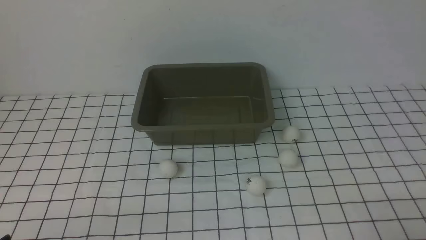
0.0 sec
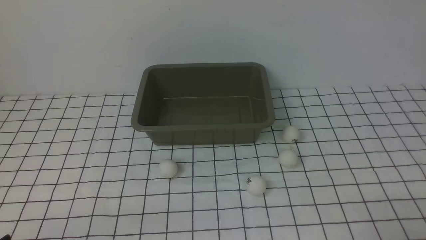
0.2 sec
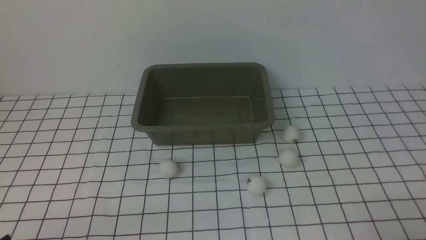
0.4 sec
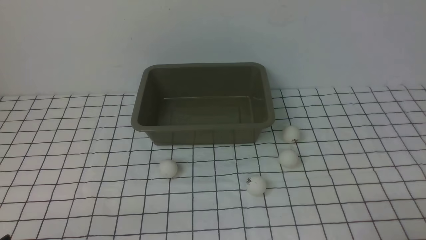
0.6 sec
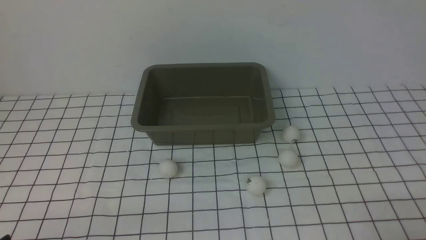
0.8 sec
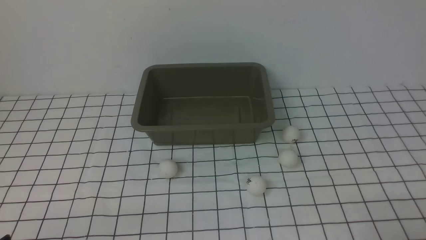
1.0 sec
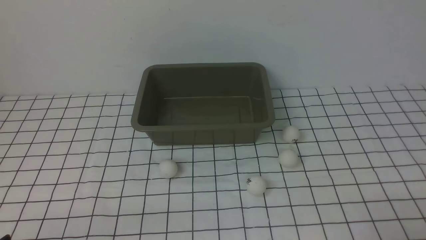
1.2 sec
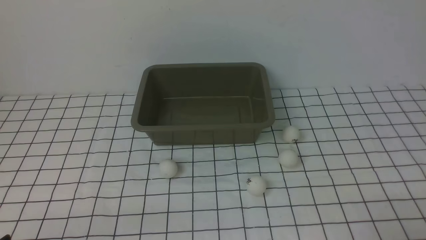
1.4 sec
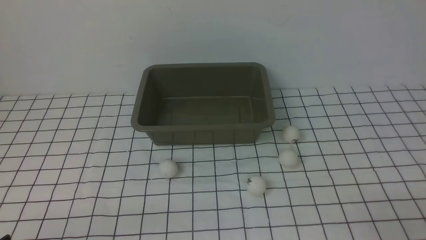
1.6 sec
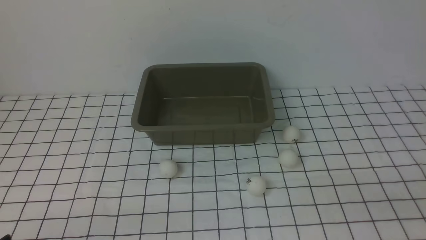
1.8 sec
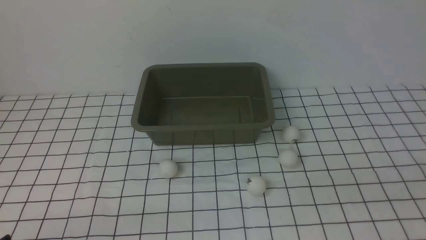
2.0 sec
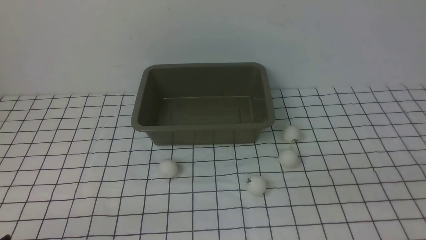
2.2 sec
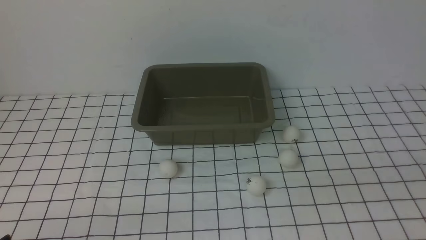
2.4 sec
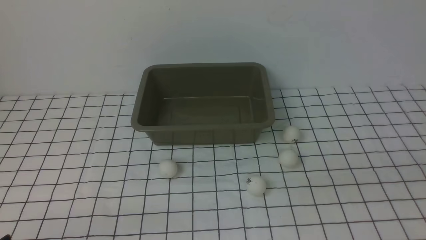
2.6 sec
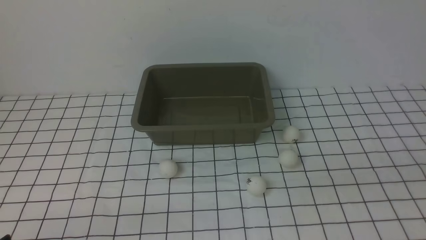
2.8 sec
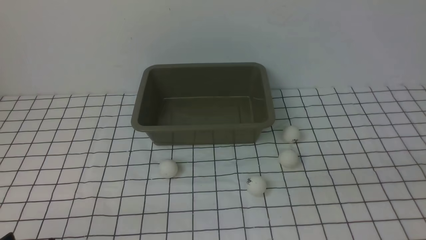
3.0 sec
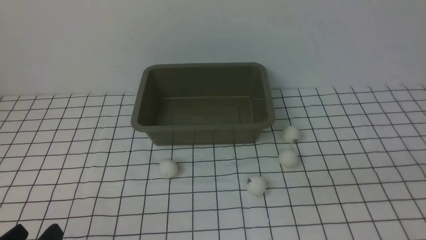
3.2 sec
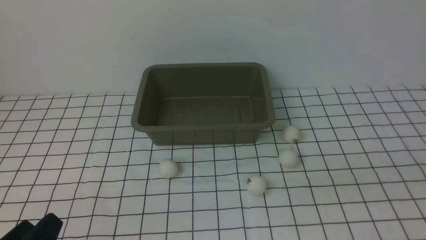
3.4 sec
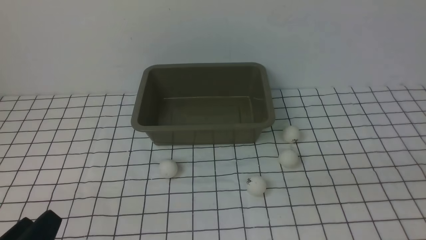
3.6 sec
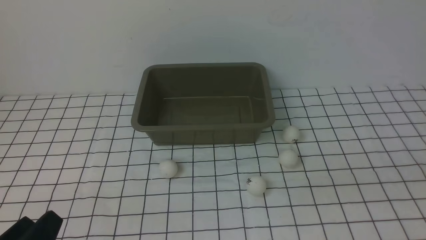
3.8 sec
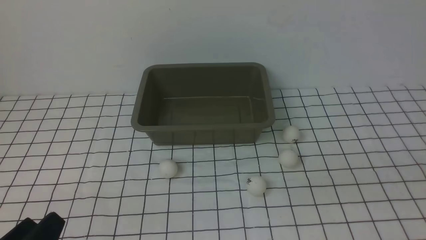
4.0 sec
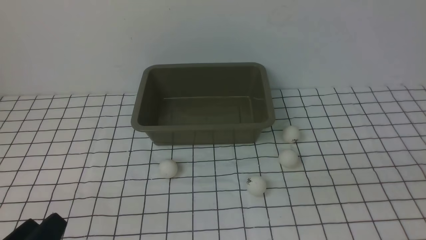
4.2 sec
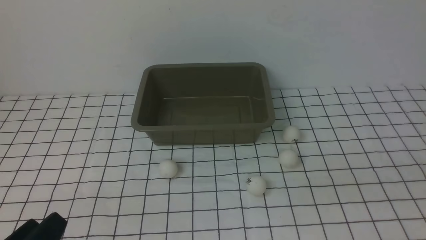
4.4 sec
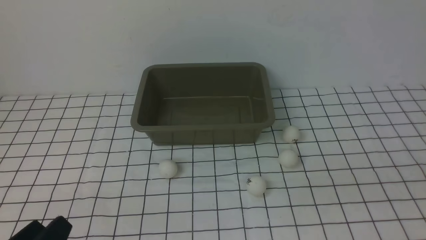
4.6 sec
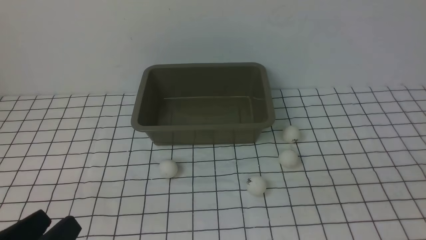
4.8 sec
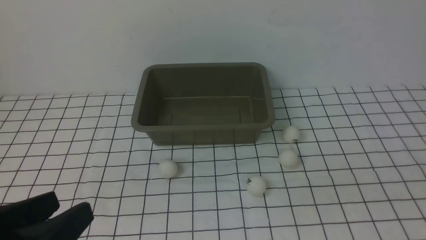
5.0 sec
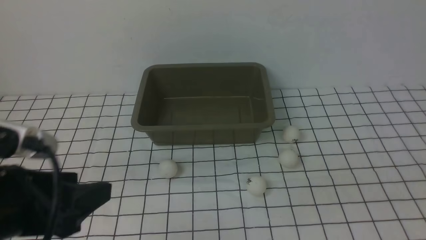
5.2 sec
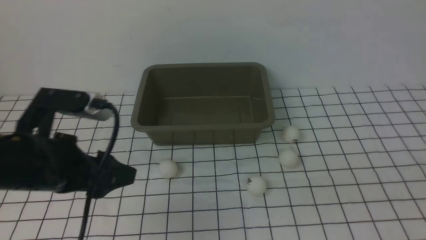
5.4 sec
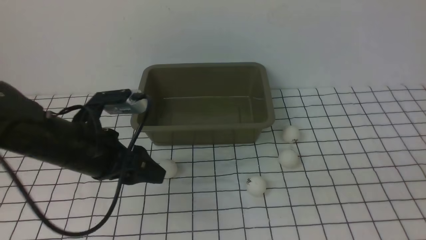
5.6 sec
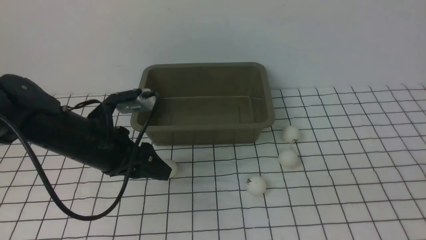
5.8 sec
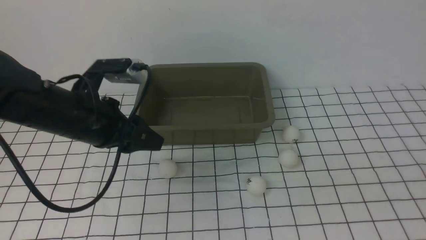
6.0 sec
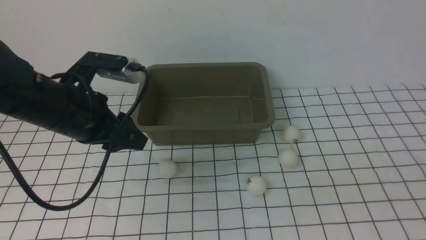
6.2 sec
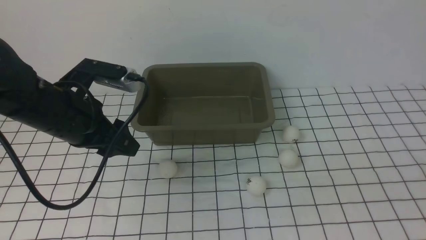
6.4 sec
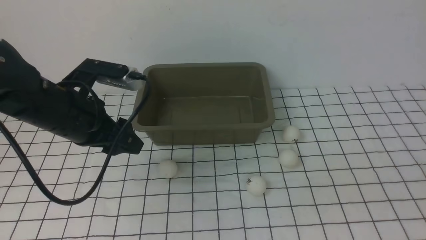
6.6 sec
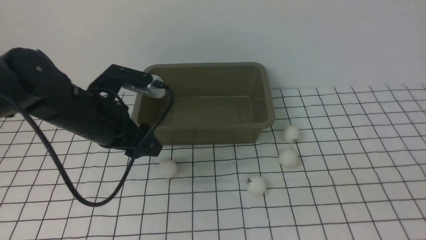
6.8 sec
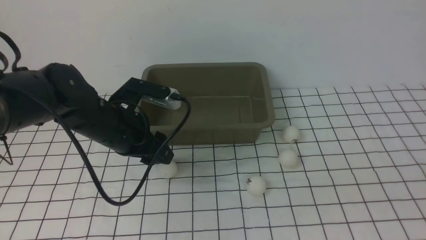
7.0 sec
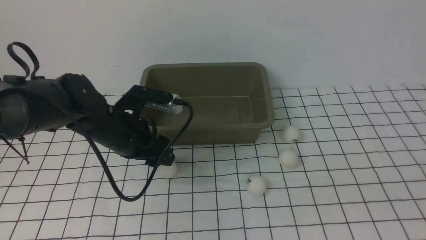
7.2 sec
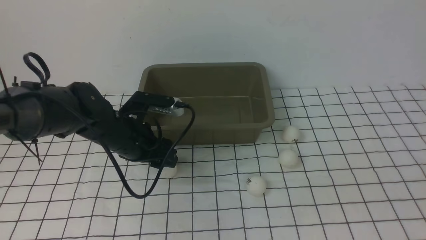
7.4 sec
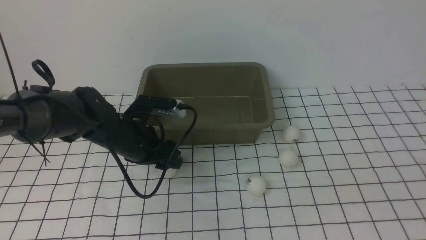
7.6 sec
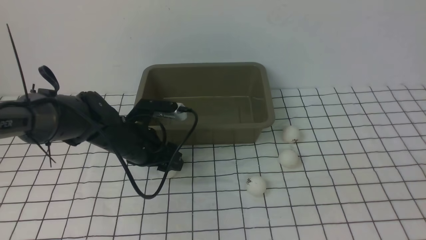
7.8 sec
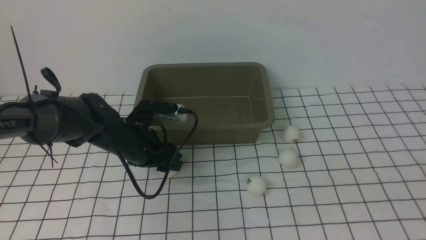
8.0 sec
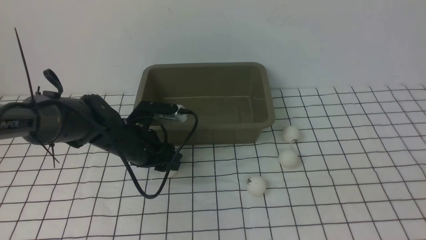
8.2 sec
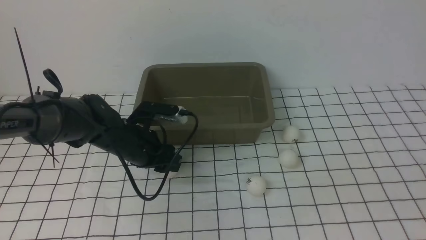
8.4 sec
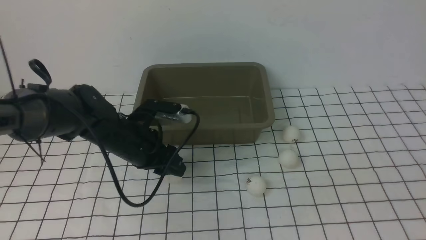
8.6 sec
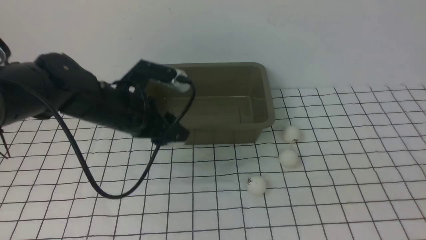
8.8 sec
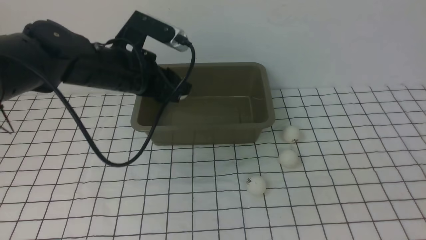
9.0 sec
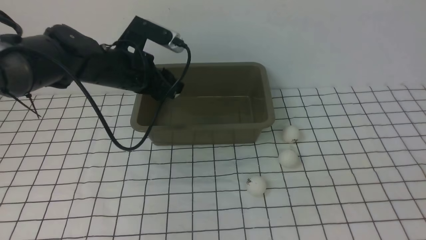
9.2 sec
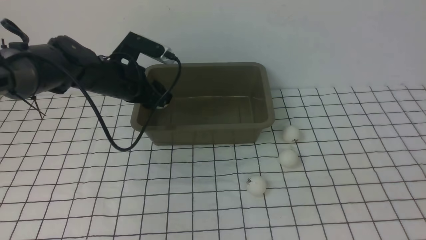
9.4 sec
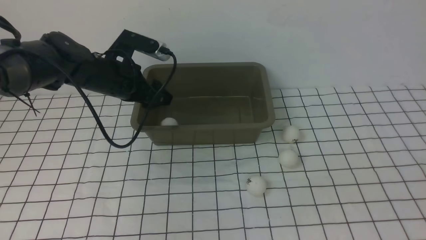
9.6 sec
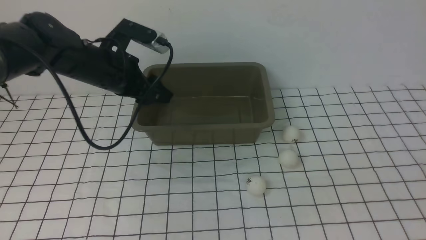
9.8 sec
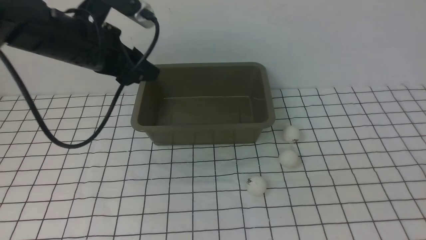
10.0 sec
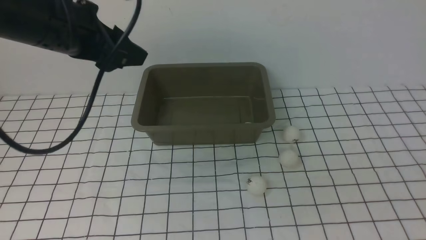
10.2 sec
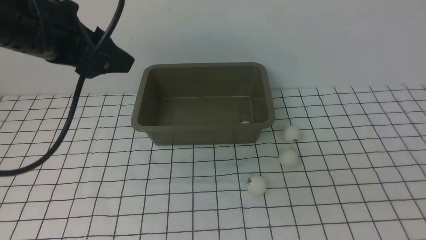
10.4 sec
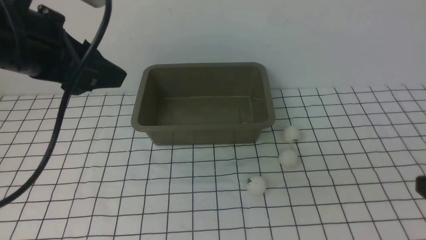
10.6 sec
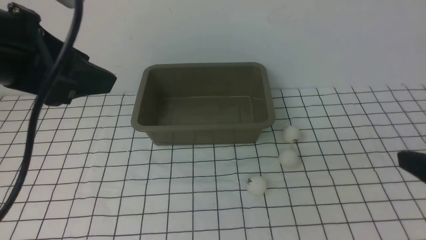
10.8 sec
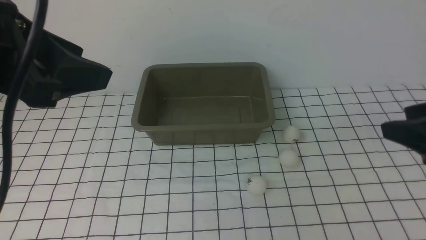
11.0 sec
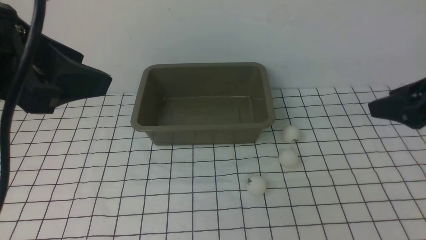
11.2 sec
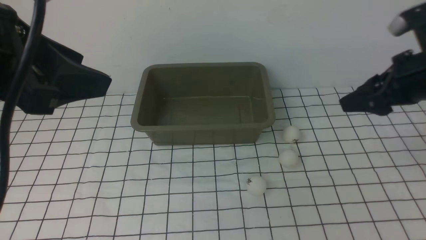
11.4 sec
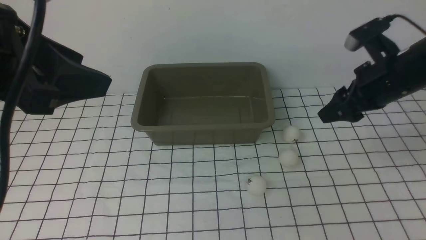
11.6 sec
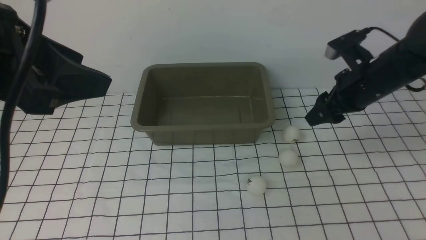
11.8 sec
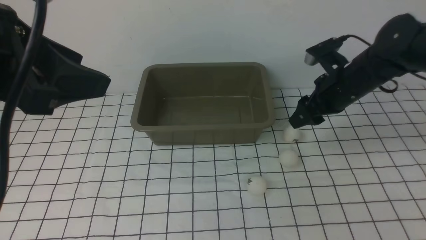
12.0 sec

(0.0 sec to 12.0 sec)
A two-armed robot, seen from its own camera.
Step, 0.0 sec - 8.6 sec: use the left arm to clamp the table tennis ball closest to it.
Step, 8.8 sec - 9.6 sec: use the left arm to put the table tennis ball into the box.
4.4 sec - 6.0 sec: The left gripper goes about 25 cm forward, and closes up.
6.0 sec - 7.6 sec: The left gripper goes about 10 cm downward and forward, and opens.
7.6 sec - 9.0 sec: The left gripper shifts some 10 cm upward, and closes.
9.0 sec - 10.4 sec: The left gripper travels upward and backward by approximately 15 cm, and opens its fingers.
10.4 sec - 12.0 sec: The right gripper moves forward, about 35 cm. Meanwhile the left gripper is displaced backward by roughly 10 cm.

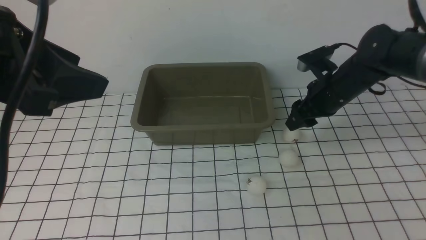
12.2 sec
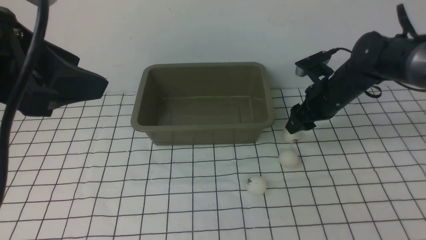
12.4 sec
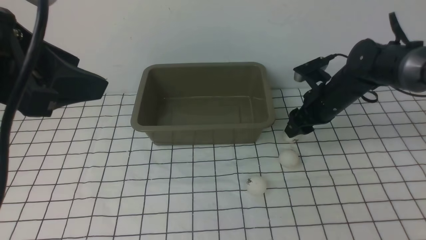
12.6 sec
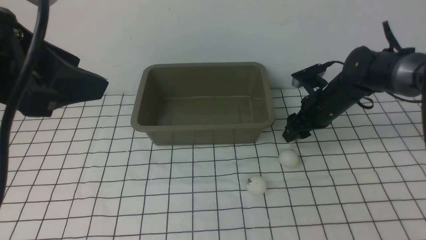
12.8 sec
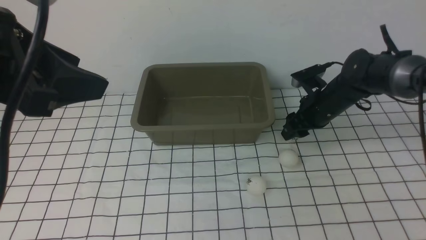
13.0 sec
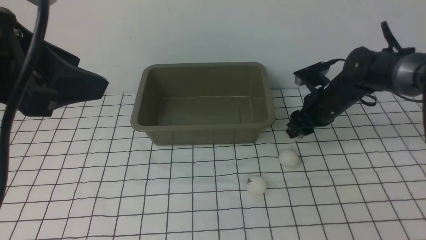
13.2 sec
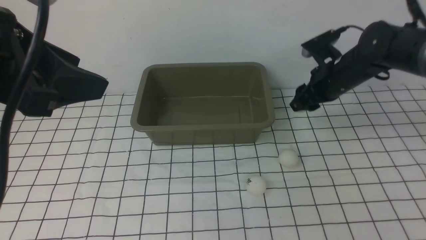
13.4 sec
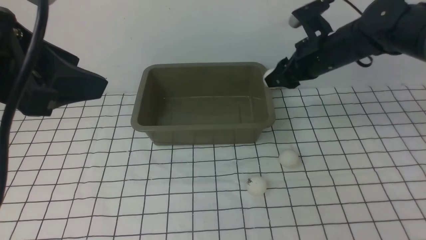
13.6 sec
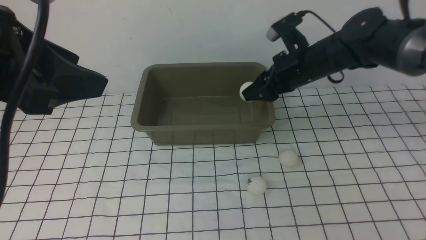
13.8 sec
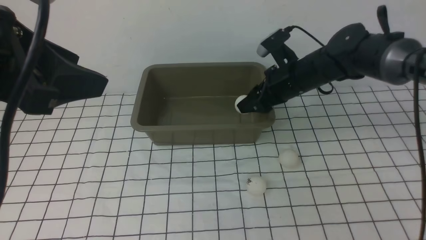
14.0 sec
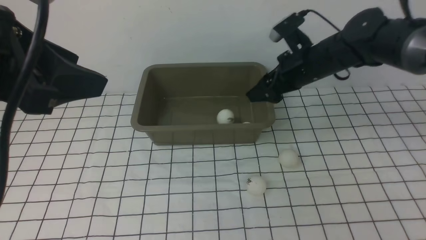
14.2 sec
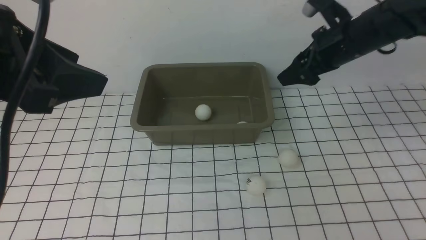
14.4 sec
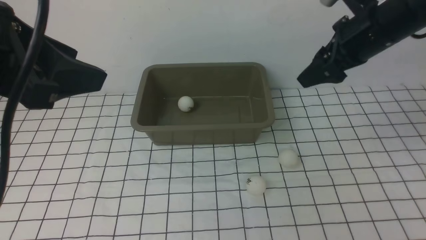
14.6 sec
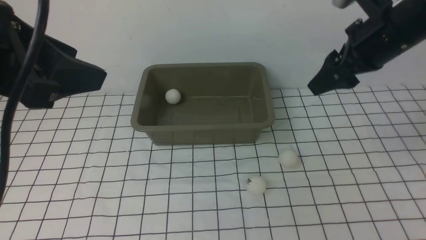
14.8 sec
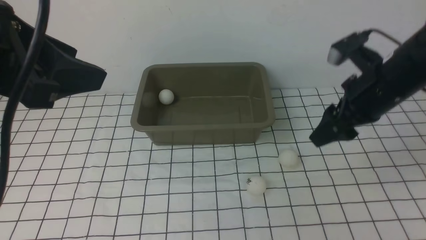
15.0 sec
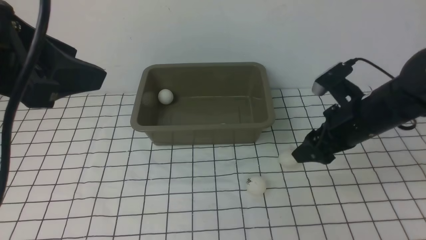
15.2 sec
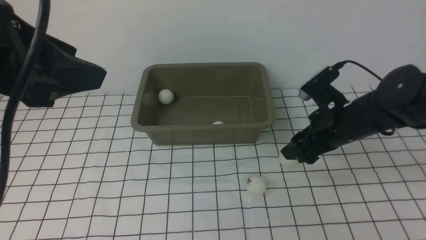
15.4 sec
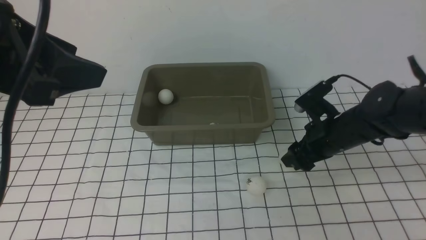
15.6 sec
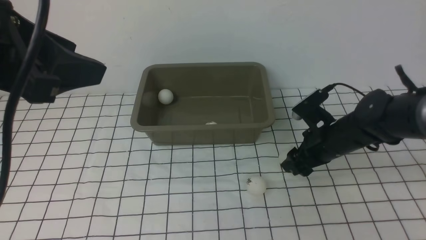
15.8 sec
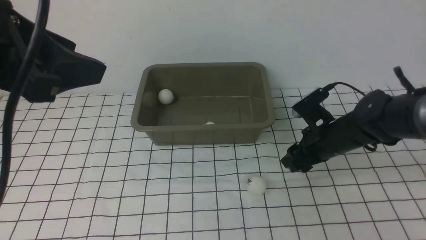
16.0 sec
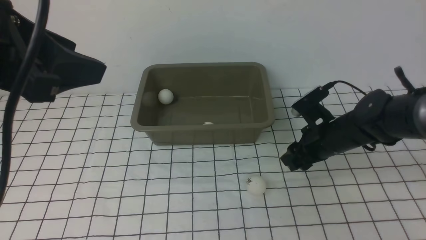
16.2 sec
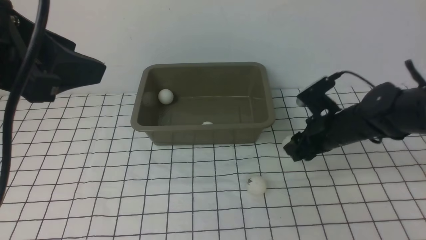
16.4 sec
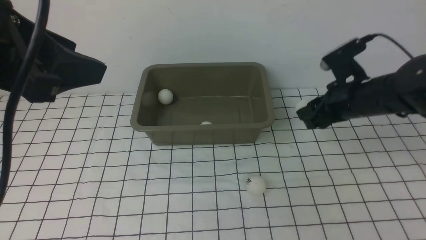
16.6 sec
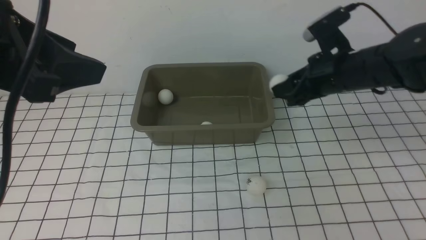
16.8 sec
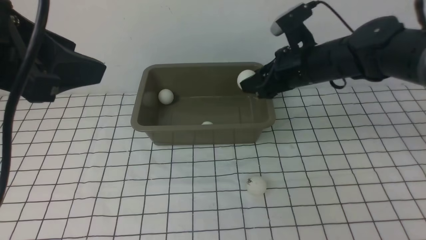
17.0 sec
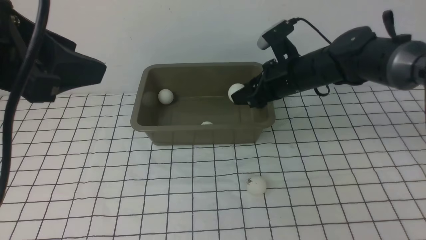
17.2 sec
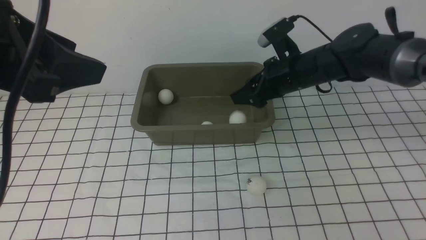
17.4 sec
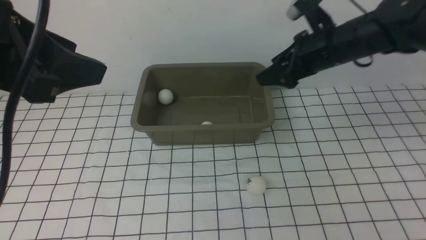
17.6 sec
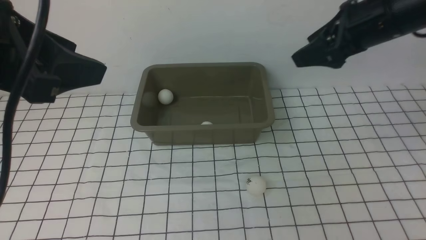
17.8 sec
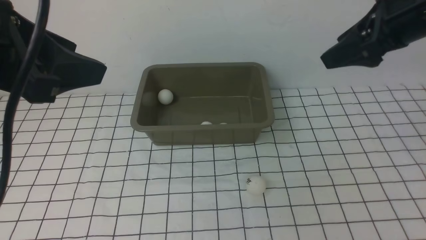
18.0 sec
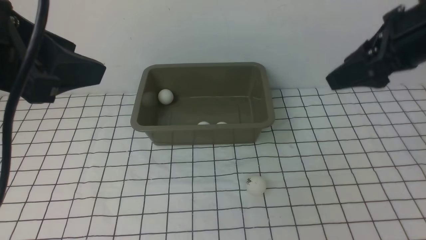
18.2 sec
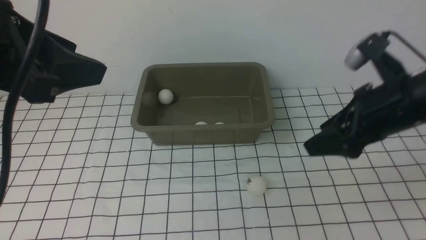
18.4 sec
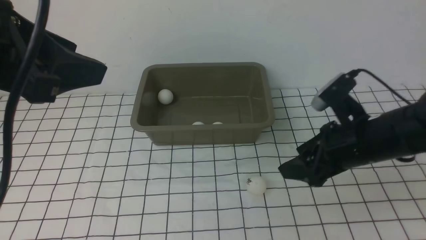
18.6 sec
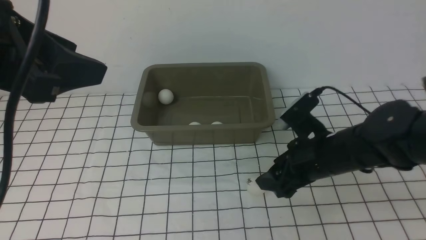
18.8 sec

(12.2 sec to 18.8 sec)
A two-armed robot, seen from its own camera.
Step, 13.6 sec - 14.2 sec: use the right arm to put the table tennis ball into the box.
Step, 14.4 sec - 16.4 sec: use the right arm to clamp the table tennis ball closest to it.
Step, 16.6 sec - 17.4 sec: use the right arm to put the table tennis ball into the box.
12.2 sec - 13.8 sec: The right gripper goes approximately 5 cm to the left.
13.8 sec - 15.4 sec: The right gripper goes approximately 10 cm backward, moves about 10 cm upward and comes back, and opens.
15.4 sec - 17.2 sec: The right gripper travels forward and to the left by about 10 cm.
17.2 sec - 18.8 sec: The right gripper goes roughly 15 cm backward and downward, and opens.
